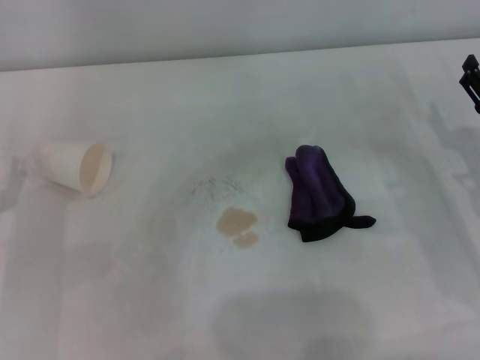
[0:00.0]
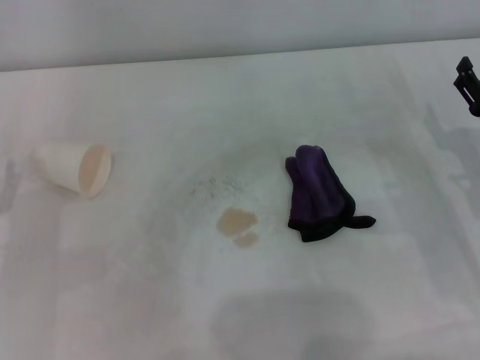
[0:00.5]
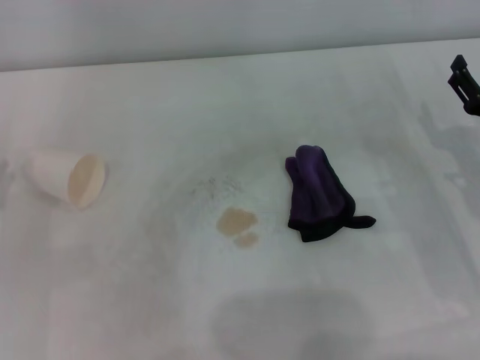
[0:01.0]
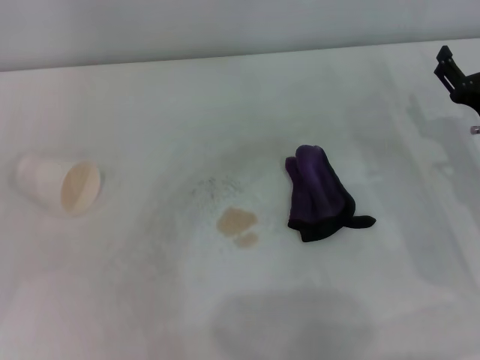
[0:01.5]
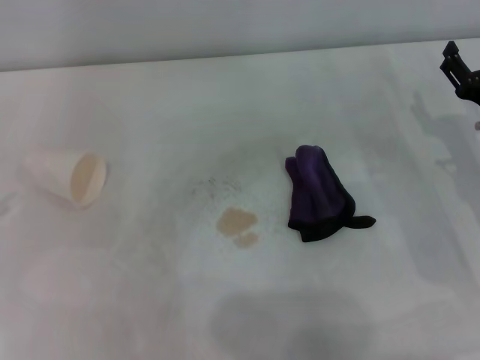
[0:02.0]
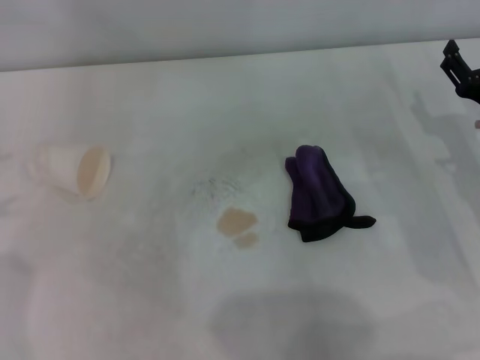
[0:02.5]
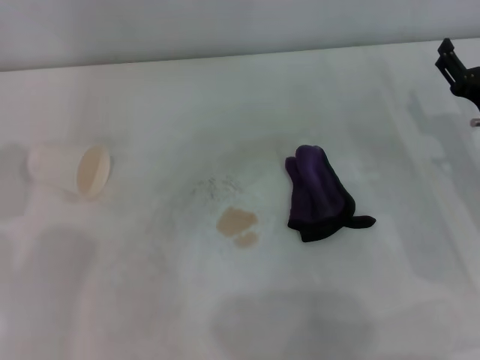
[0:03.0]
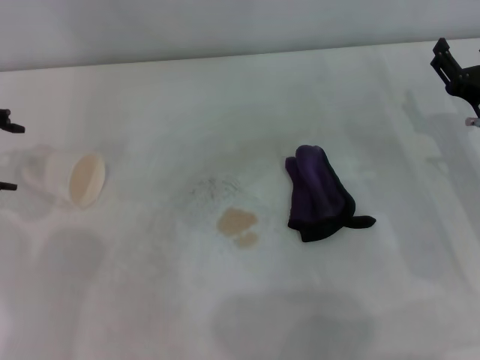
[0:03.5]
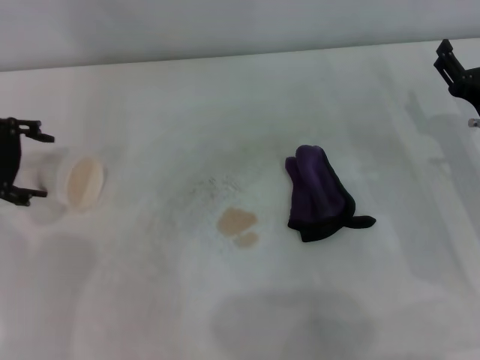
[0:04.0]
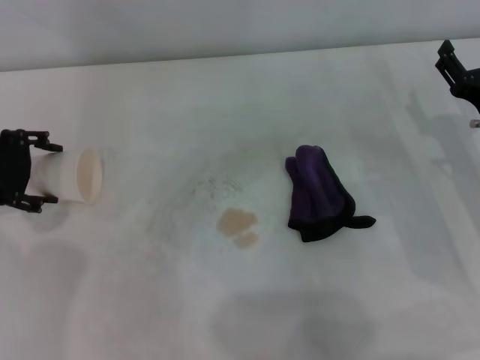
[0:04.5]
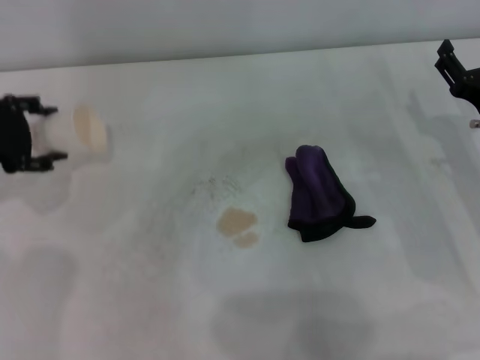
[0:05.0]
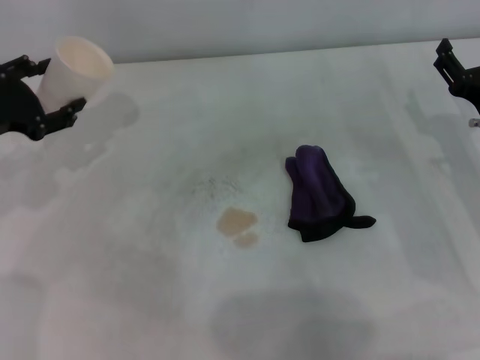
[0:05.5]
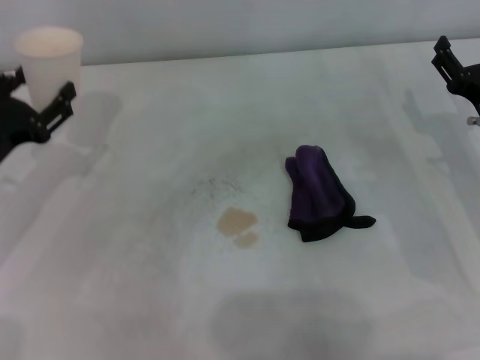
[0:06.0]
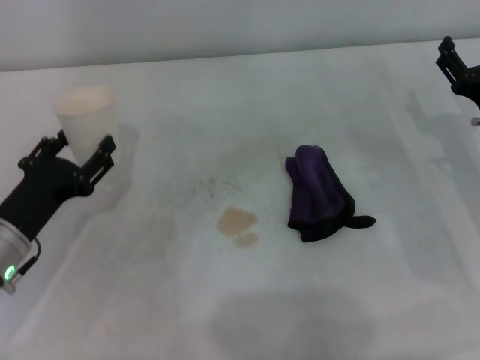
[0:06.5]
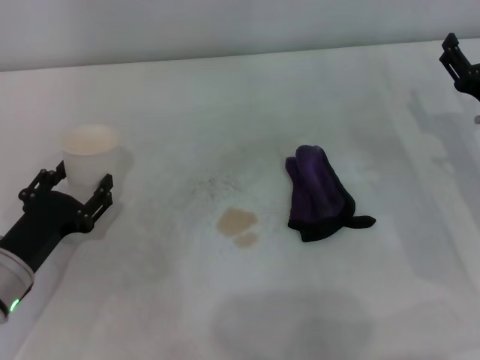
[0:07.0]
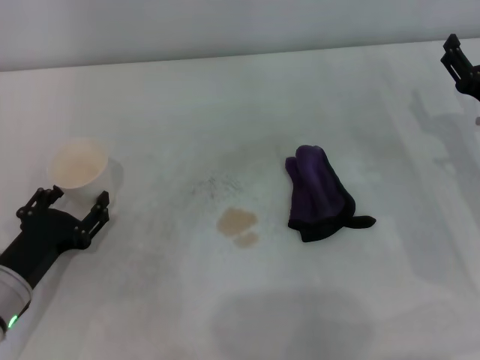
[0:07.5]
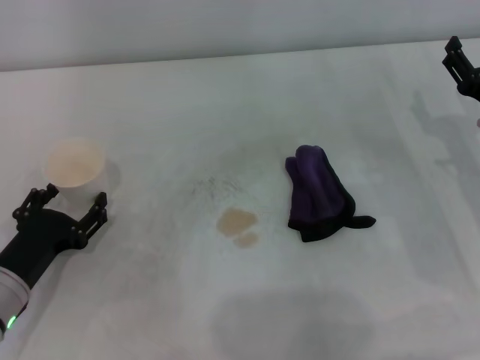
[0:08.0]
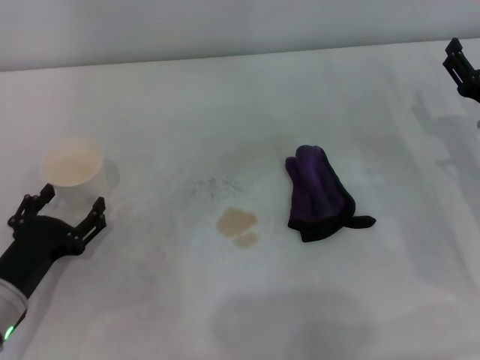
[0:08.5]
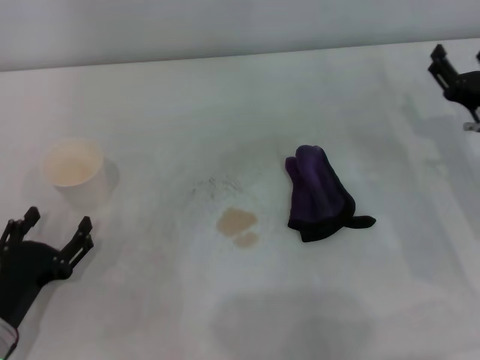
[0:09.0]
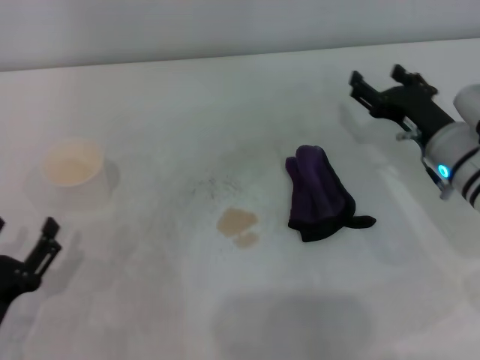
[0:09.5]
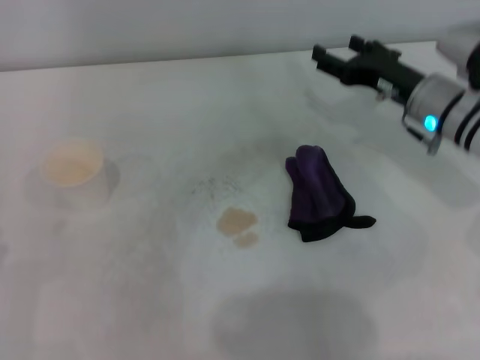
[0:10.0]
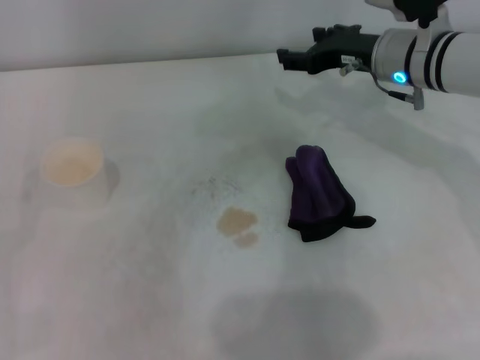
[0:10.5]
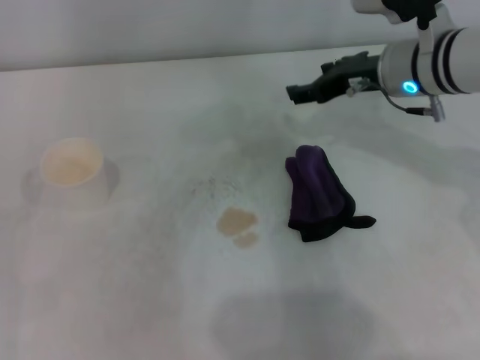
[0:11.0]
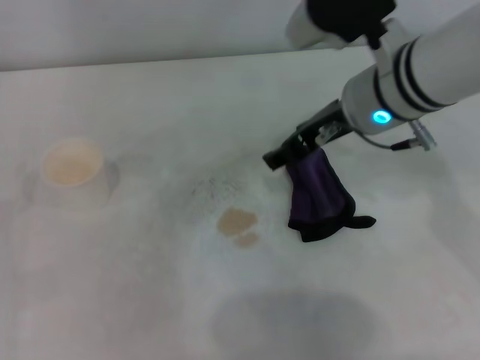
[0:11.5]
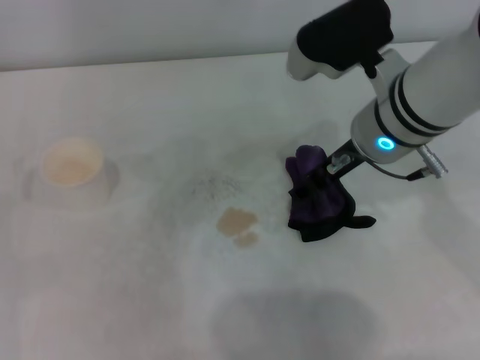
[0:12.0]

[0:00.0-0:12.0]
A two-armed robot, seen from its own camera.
Step, 0:00.0 to 0:04.0: Grasp the paper cup with the left gripper.
Step, 0:04.5 to 0:08.0: Stand the paper cup upright with the left gripper.
0:02.0 to 0:04.0: The left gripper heads to the right and forward, covering roughly 15 cm.
0:04.0 to 0:06.0: The left gripper goes approximately 10 cm downward and backward, and closes its fingers.
0:06.0 to 0:08.0: The left gripper moves backward and downward, about 10 cm.
0:08.0 to 0:10.0: The left gripper is displaced backward and to the left by some 10 cm, and opens. Meanwhile the right gripper heads forward and to the left, covering some 10 cm.
0:10.0 to 0:12.0: The left gripper shifts about 10 cm forward; the right gripper heads to the left and upward, covering about 15 cm.

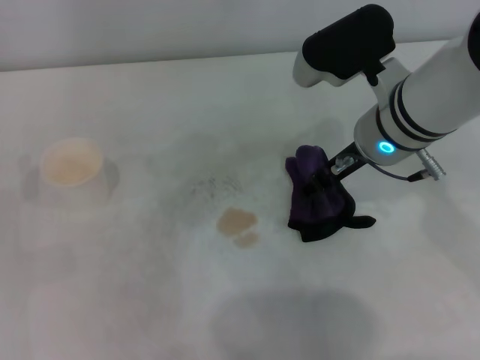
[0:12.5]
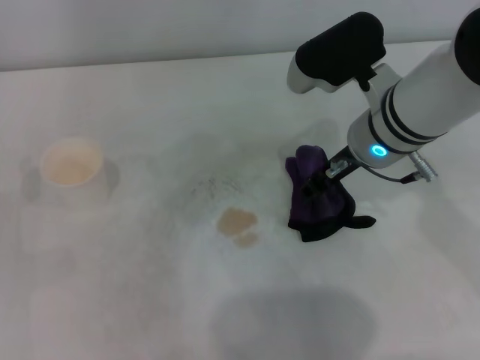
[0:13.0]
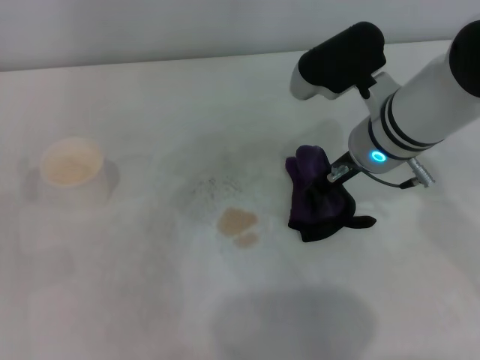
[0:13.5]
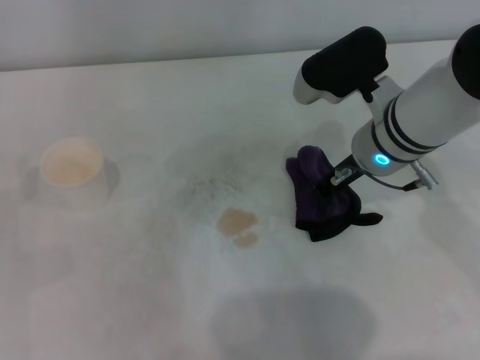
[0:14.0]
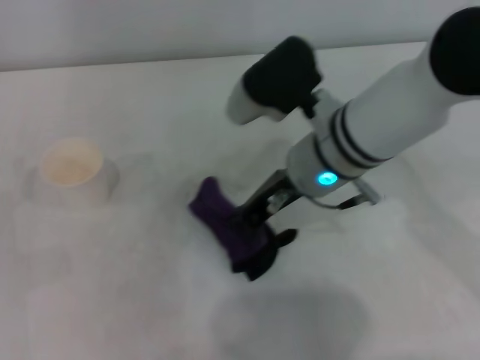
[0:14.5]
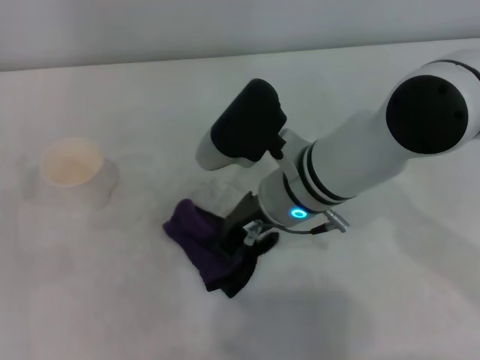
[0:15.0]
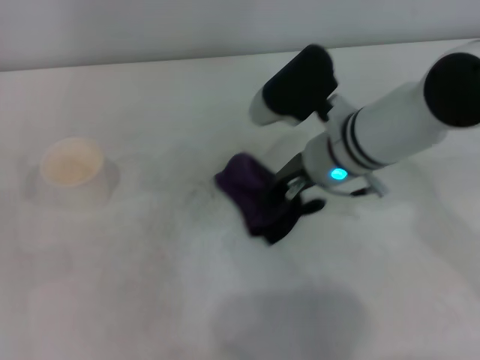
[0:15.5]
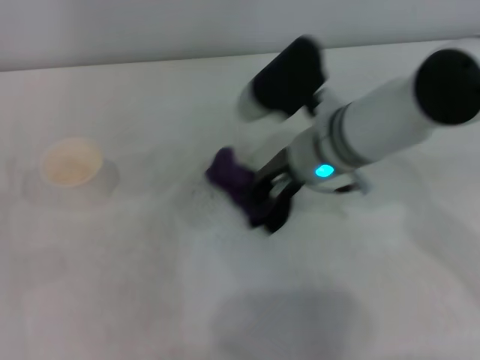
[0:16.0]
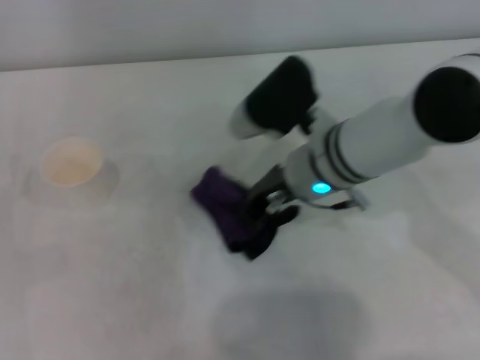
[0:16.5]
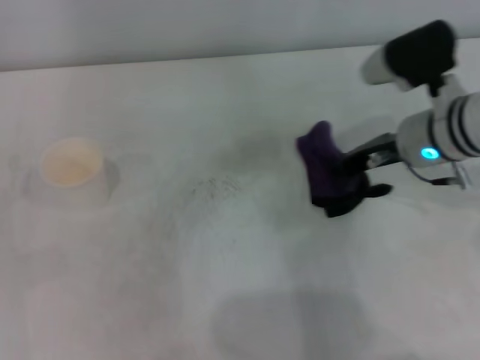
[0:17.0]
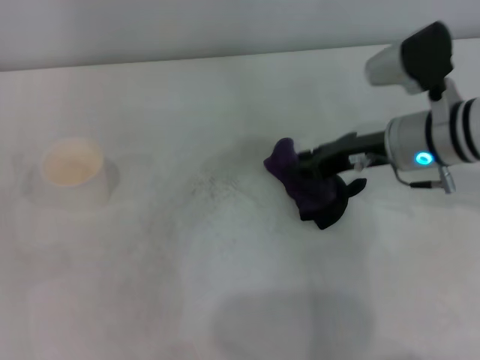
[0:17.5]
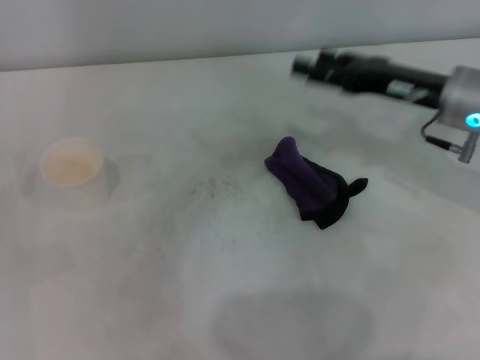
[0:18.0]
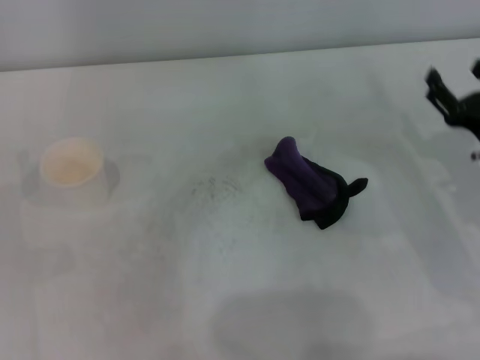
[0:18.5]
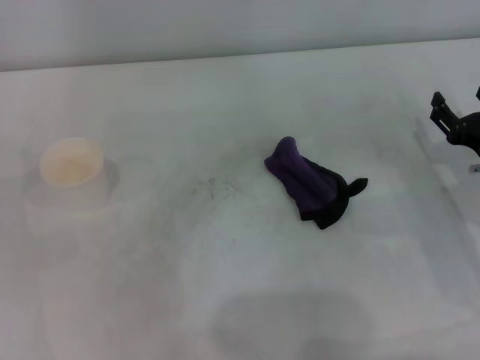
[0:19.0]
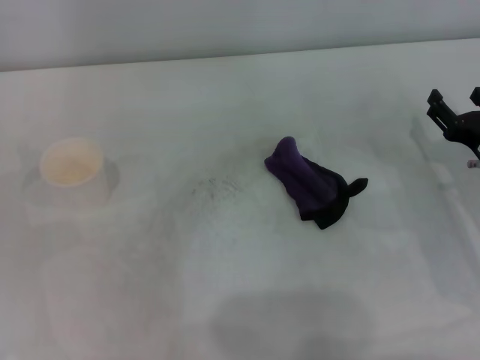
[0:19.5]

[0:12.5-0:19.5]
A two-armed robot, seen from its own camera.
Step, 0:14.5 to 0:16.5: Wipe the stains off the table with the right gripper.
0:12.5 to 0:14.5: The right gripper is displaced to the left by roughly 5 cm, and closes its fingers.
0:16.0 to 0:17.5: The right gripper moves to the right, some 10 cm.
0:17.5 to 0:19.5: The right gripper goes roughly 15 cm to the right, downward and backward, and opens its fingers.

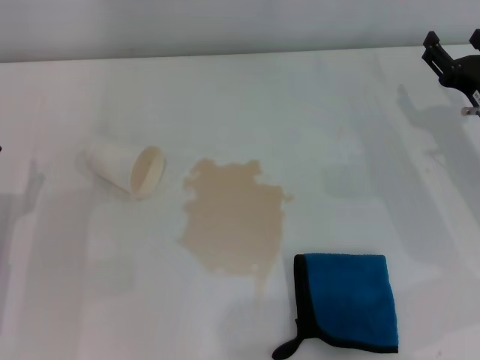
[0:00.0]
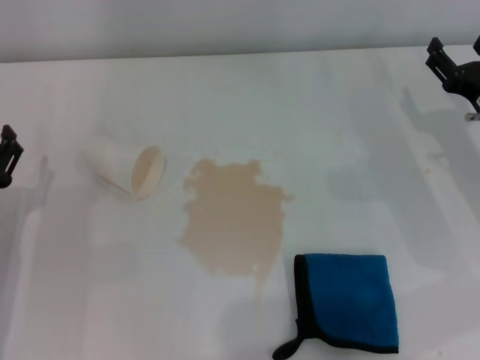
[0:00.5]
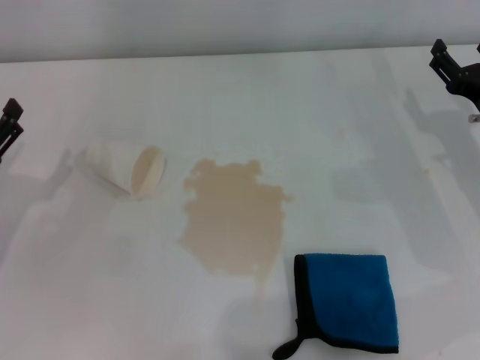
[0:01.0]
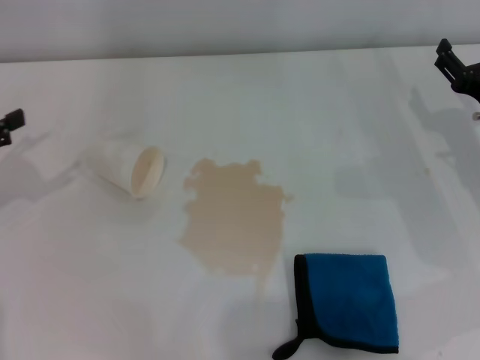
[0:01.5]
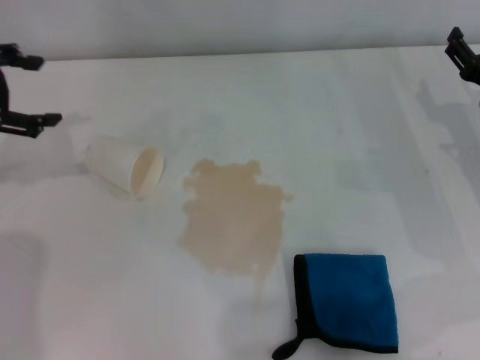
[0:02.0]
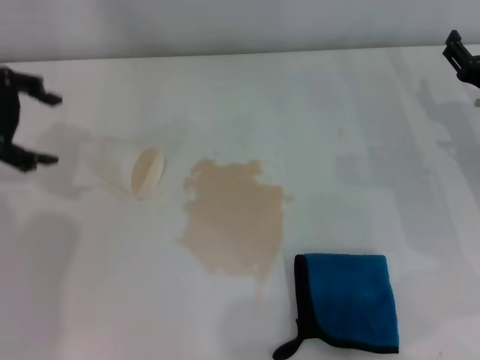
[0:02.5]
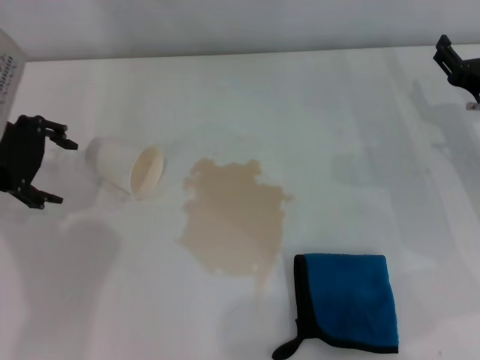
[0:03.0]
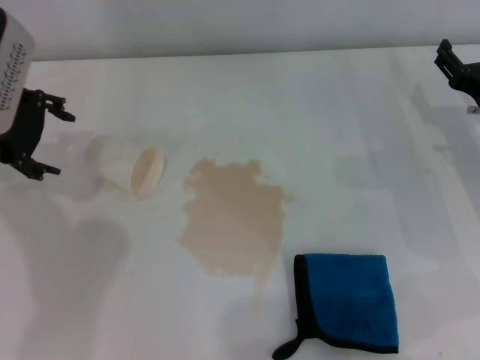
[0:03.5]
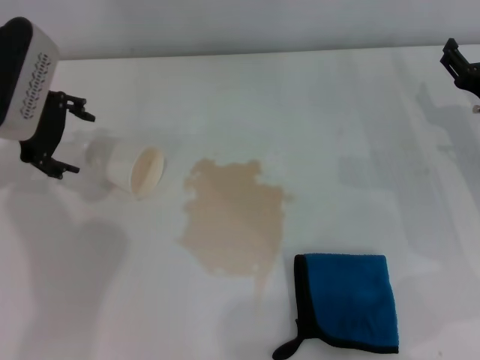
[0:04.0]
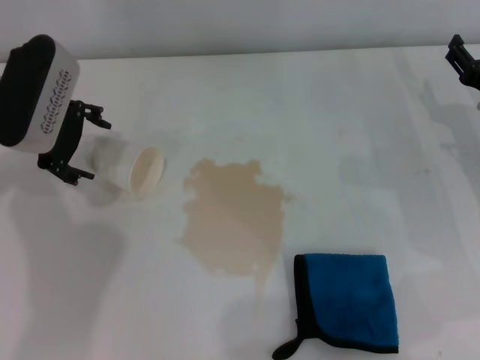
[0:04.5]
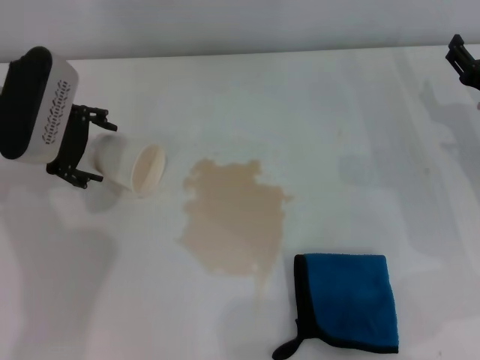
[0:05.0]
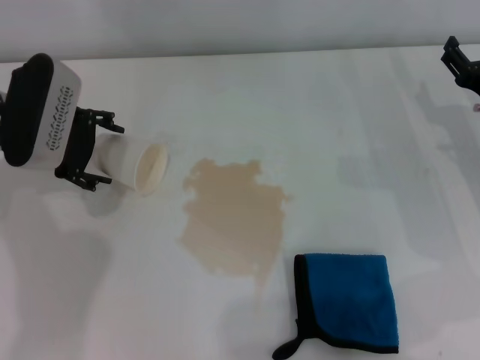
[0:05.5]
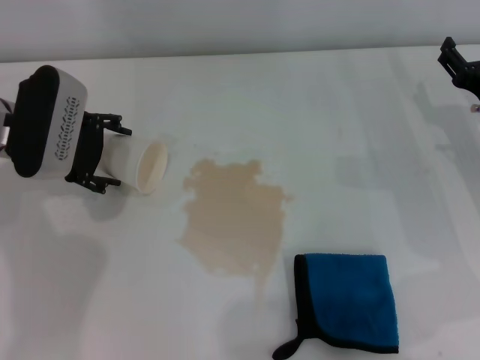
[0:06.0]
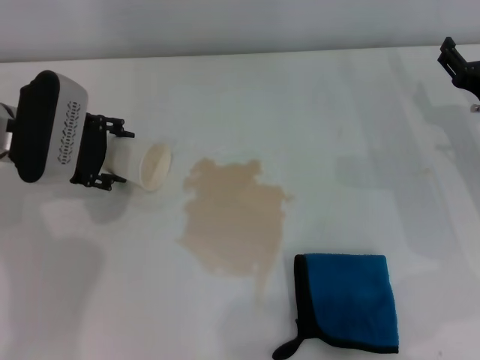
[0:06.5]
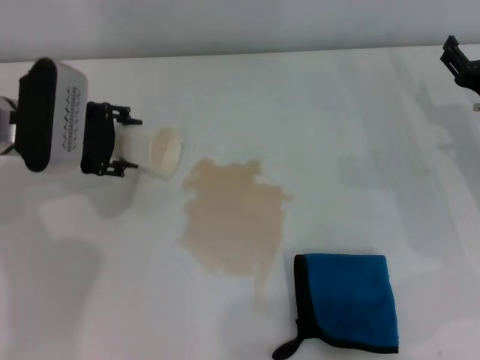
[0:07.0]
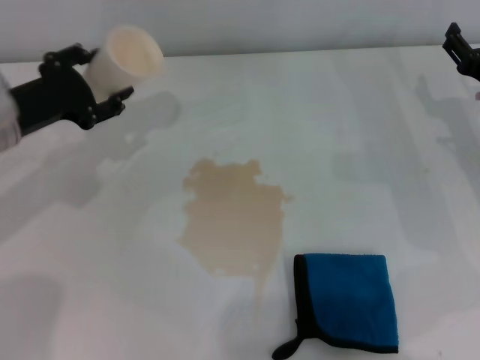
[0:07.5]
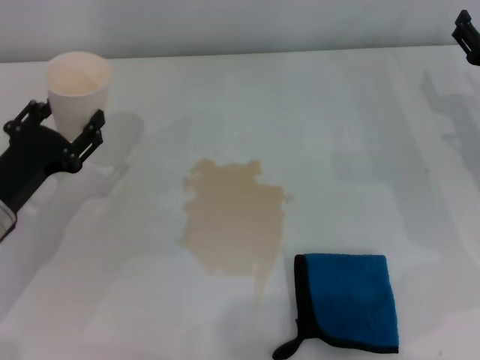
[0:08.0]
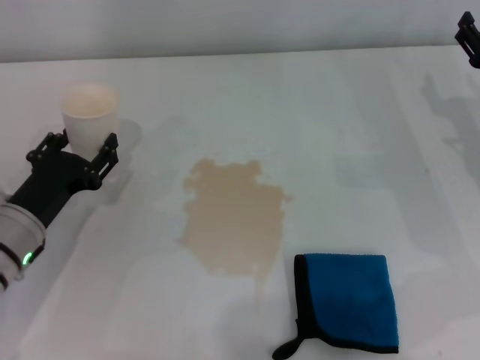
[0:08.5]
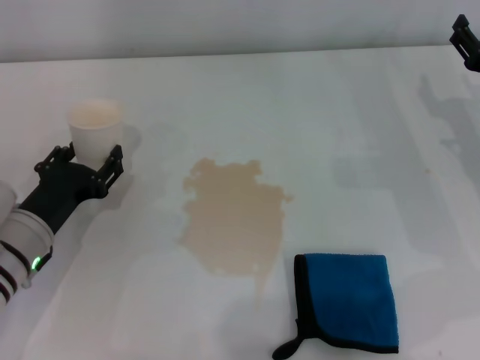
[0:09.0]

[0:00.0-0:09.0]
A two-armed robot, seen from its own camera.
Step, 0:00.0 to 0:06.5: Grasp the paper cup with the left gripper.
0:00.0 to 0:02.0: The left gripper travels upward and forward by roughly 20 cm.
0:02.0 to 0:04.5: The left gripper heads to the right, covering about 10 cm.
0:04.5 to 0:07.0: The left gripper closes up.
0:07.0 to 0:09.0: The left gripper shifts about 15 cm backward and downward.
